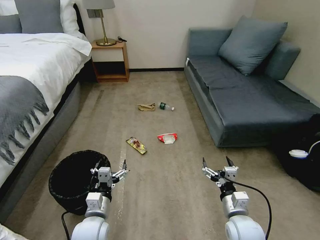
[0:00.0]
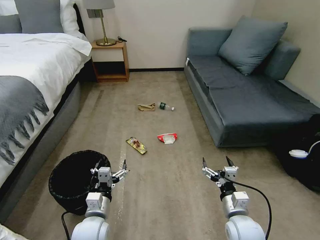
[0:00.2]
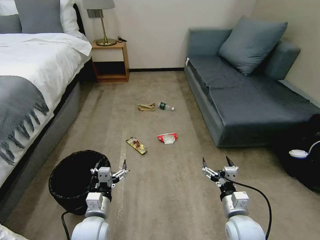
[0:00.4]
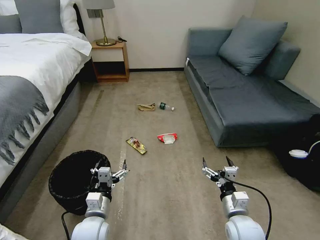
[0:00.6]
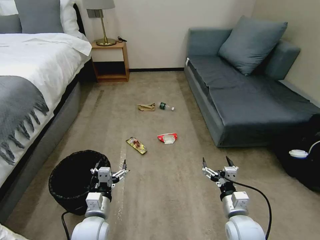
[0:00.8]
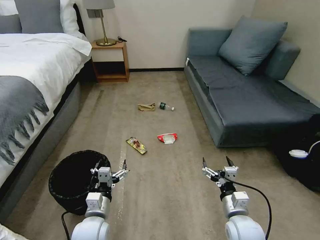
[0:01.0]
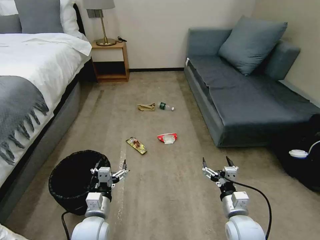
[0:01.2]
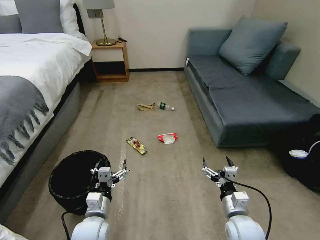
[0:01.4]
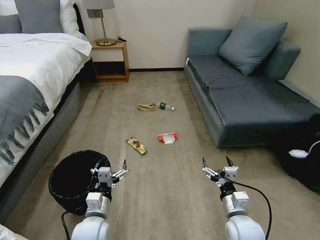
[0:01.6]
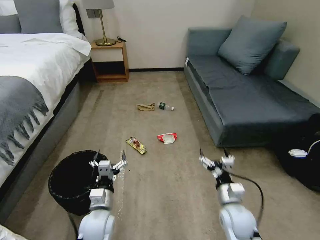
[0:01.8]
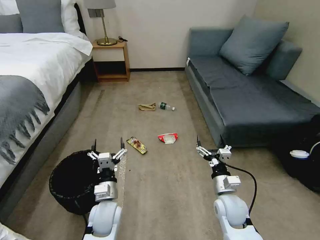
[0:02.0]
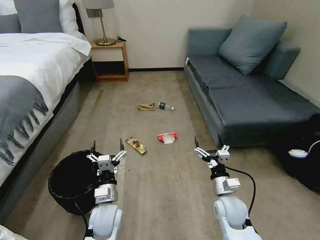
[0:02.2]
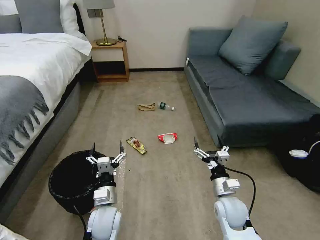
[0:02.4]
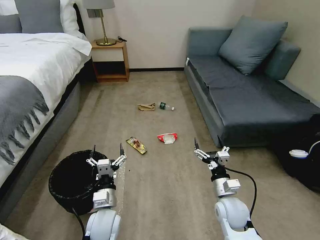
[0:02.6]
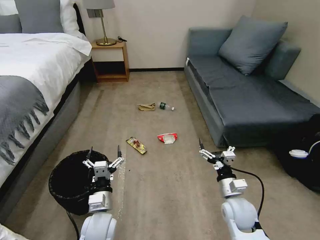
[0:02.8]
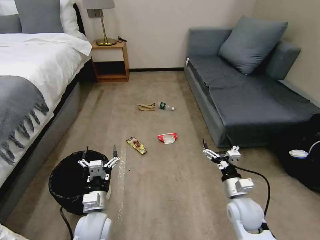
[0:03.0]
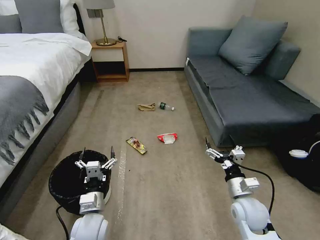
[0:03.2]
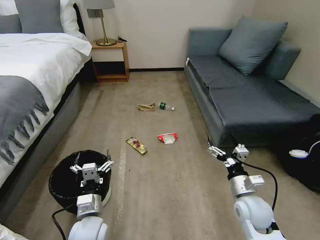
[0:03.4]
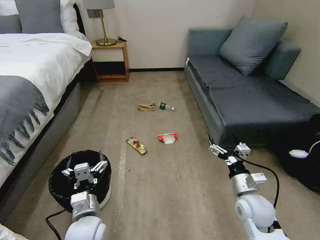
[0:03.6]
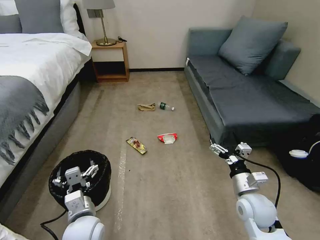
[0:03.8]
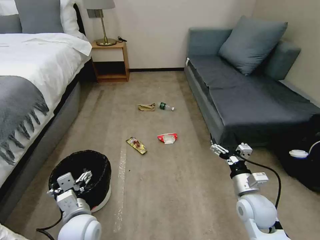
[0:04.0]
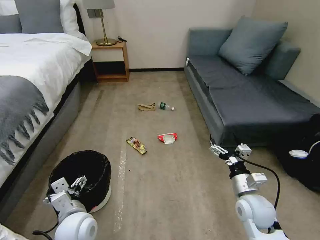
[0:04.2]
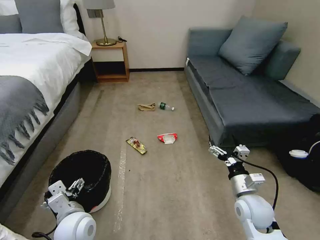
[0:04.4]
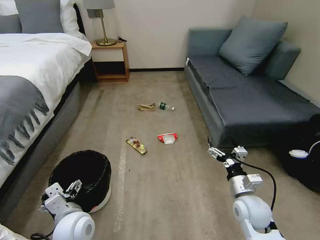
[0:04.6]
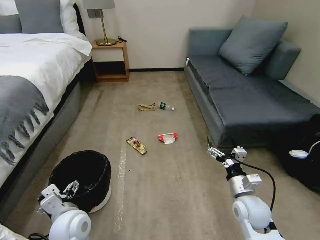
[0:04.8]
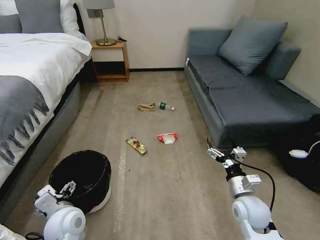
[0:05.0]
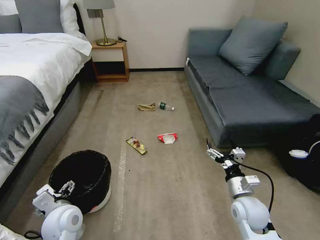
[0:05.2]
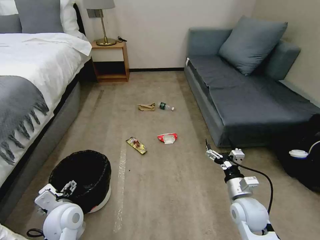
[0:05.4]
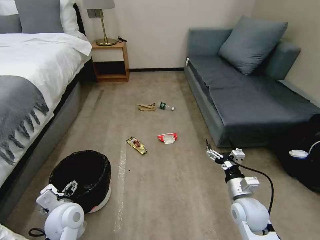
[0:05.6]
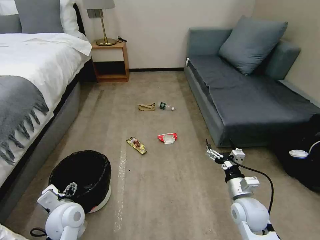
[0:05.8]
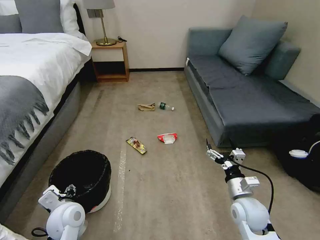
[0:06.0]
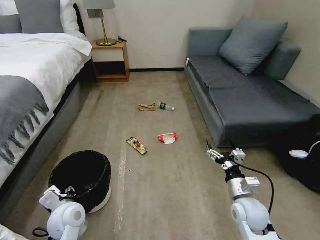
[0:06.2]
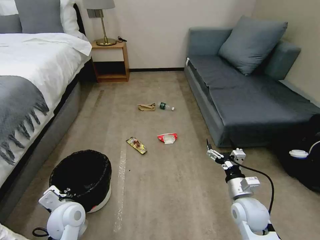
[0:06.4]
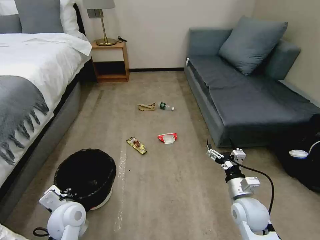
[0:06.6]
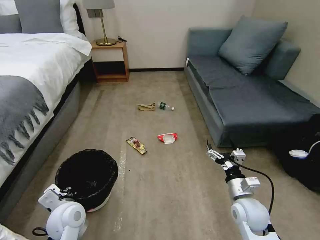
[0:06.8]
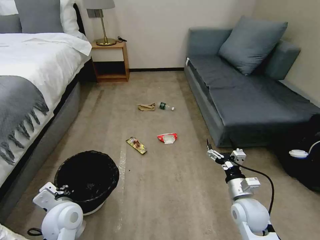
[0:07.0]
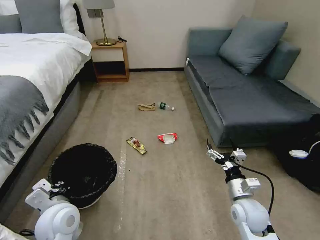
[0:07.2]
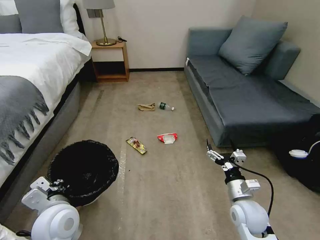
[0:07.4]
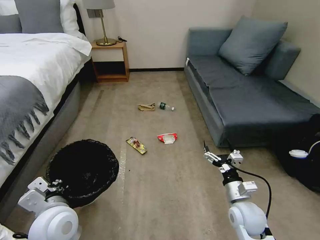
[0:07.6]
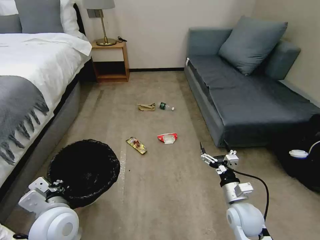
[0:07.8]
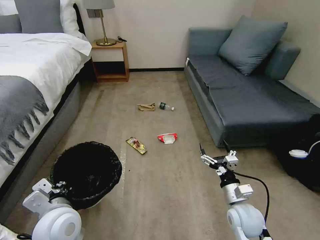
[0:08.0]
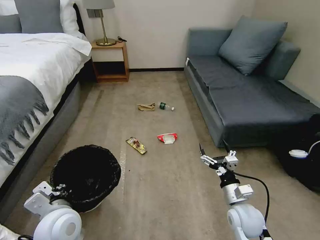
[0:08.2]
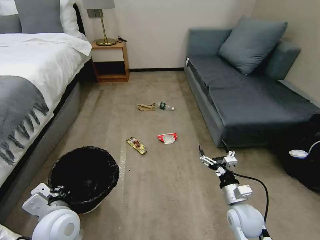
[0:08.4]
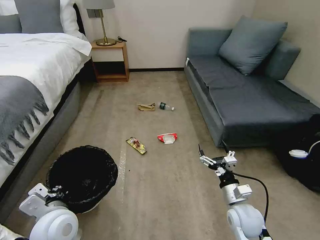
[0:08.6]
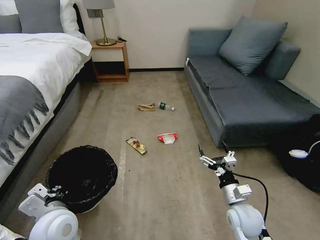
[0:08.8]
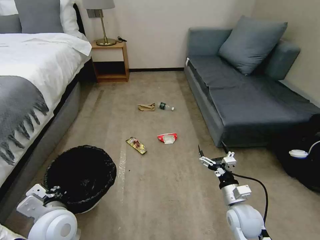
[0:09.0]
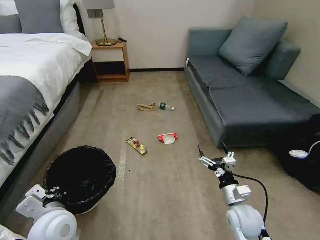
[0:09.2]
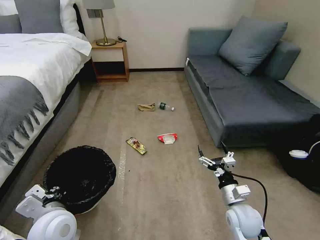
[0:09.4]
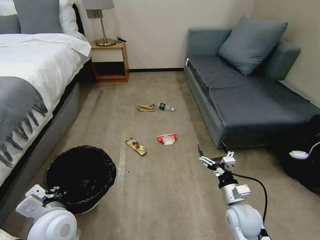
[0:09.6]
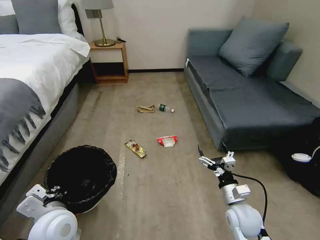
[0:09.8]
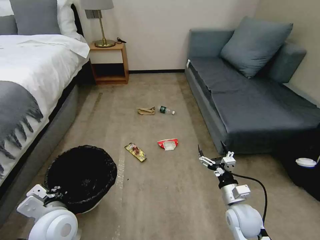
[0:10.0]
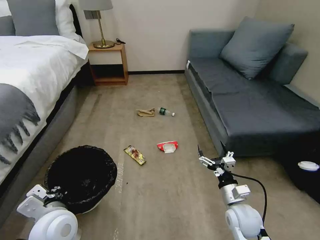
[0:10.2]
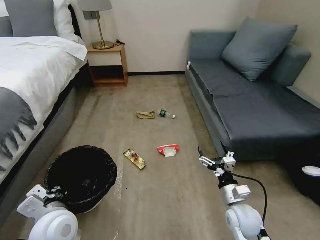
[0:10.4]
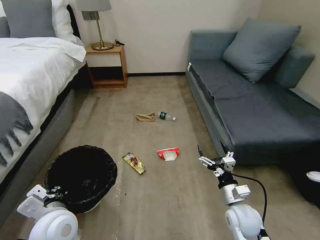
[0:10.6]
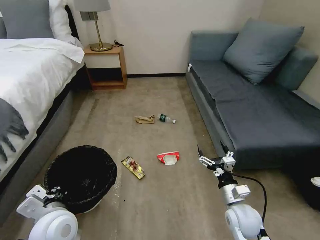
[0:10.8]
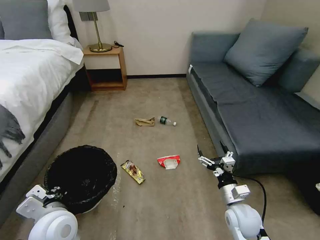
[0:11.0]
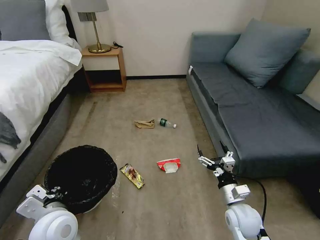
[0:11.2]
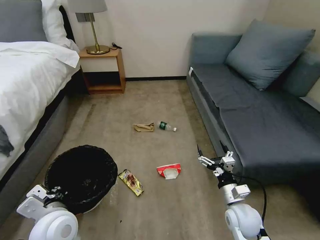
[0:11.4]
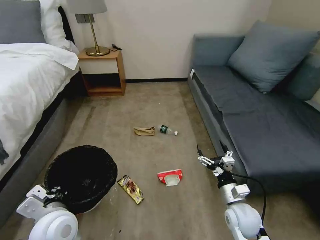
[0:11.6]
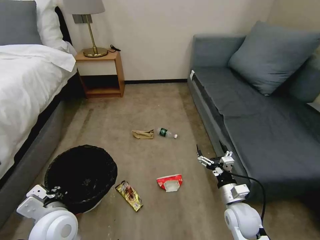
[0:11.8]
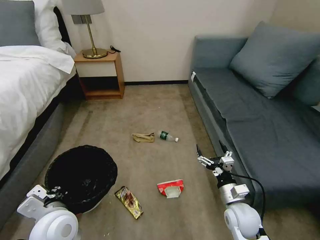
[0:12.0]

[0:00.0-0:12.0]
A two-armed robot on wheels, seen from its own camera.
Task of the whole recording: Pick up the trash bin, then pick up the garbage on the floor and place it into the trash bin.
0:01.6 to 0:03.0: The right gripper shifts roughly 5 cm forward.
0:03.0 to 0:04.4: The left gripper ends up about 5 cm from where it was.
0:04.4 to 0:06.0: The left gripper ends up some 5 cm from where it was, and closes up.
0:06.0 to 0:07.6: The left gripper is displaced upward by roughly 10 cm, and closes up.
0:07.6 to 0:09.0: The grippers move only a little.
0:09.0 to 0:10.4: Both grippers stay put.

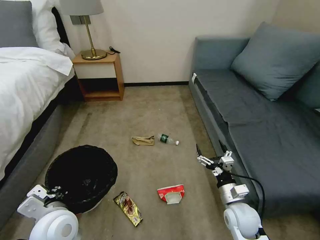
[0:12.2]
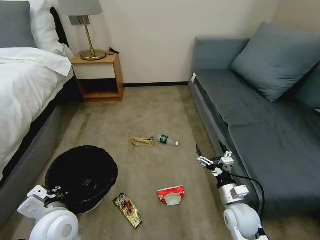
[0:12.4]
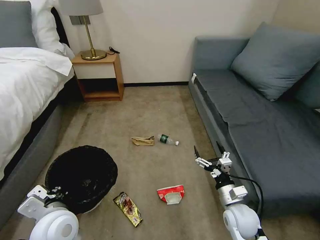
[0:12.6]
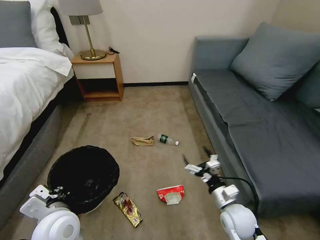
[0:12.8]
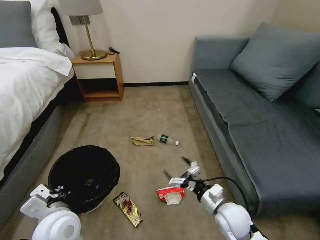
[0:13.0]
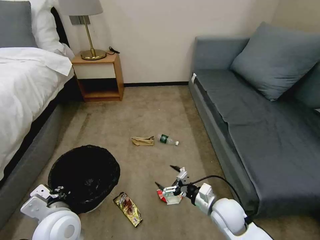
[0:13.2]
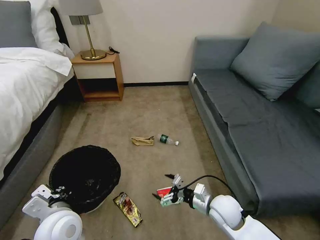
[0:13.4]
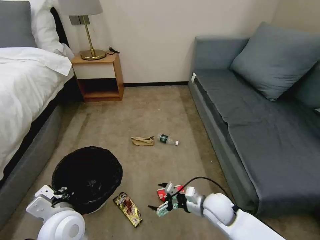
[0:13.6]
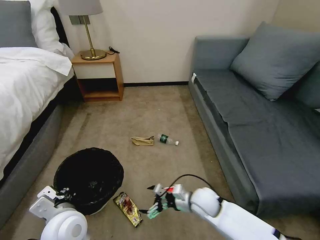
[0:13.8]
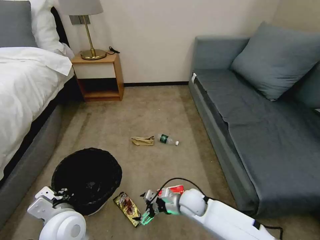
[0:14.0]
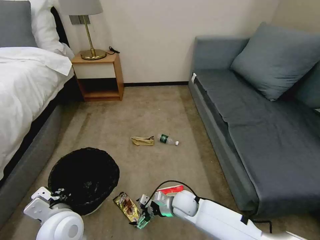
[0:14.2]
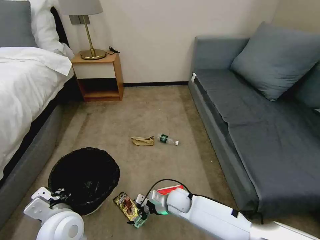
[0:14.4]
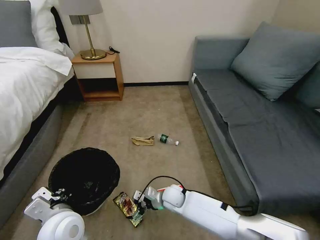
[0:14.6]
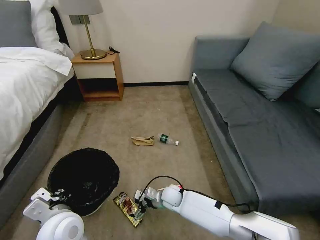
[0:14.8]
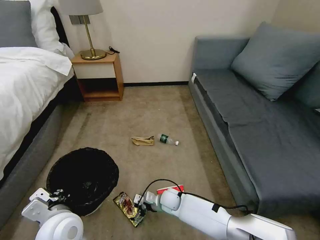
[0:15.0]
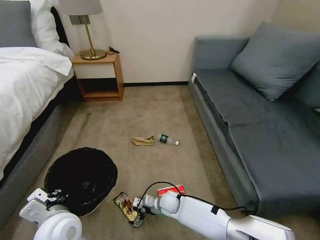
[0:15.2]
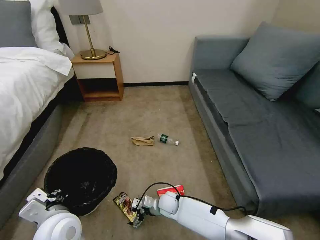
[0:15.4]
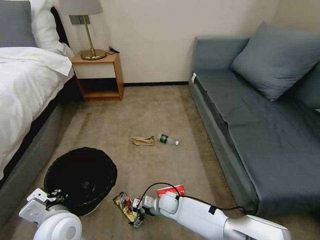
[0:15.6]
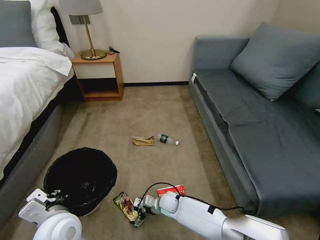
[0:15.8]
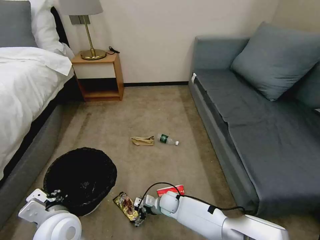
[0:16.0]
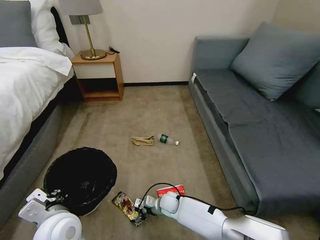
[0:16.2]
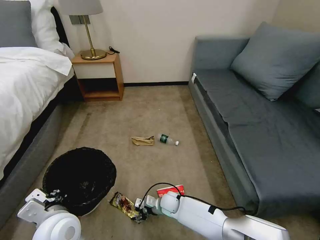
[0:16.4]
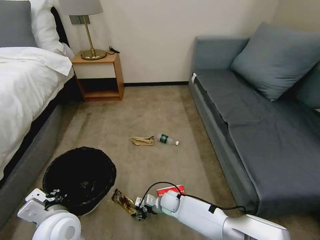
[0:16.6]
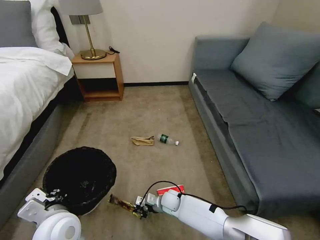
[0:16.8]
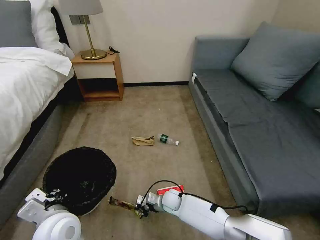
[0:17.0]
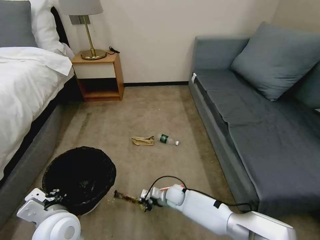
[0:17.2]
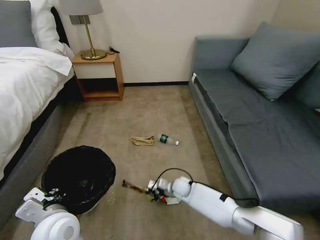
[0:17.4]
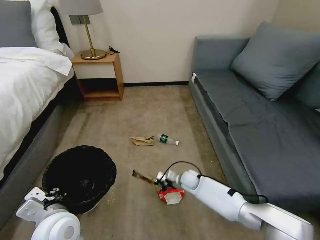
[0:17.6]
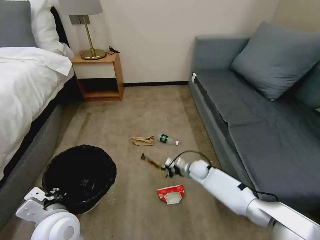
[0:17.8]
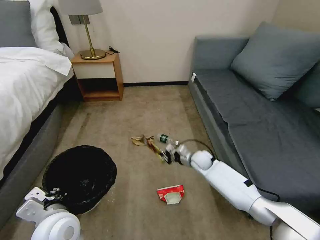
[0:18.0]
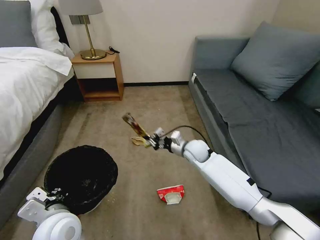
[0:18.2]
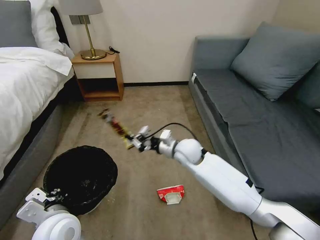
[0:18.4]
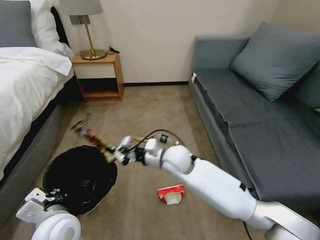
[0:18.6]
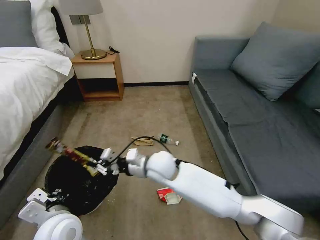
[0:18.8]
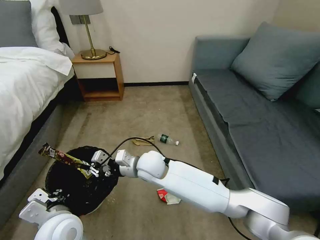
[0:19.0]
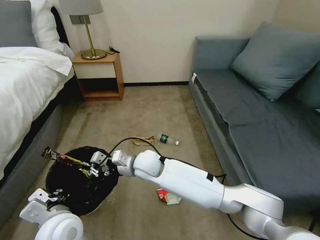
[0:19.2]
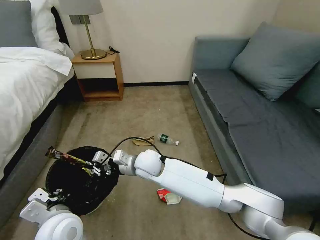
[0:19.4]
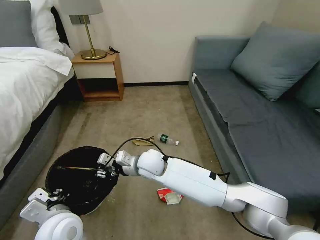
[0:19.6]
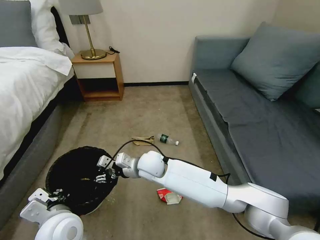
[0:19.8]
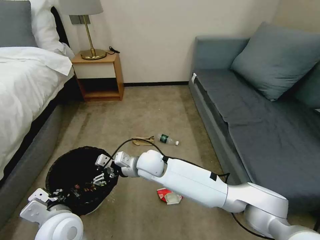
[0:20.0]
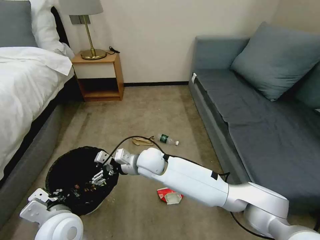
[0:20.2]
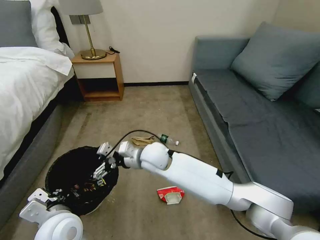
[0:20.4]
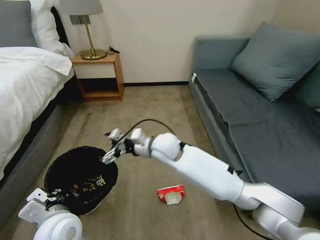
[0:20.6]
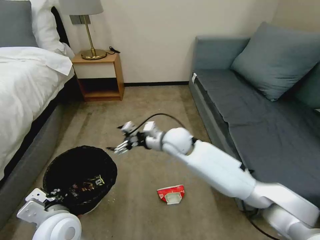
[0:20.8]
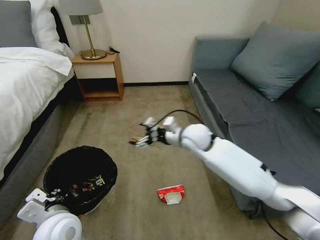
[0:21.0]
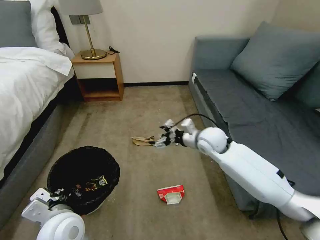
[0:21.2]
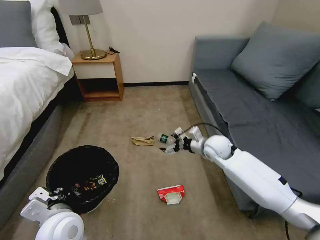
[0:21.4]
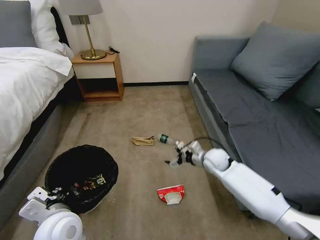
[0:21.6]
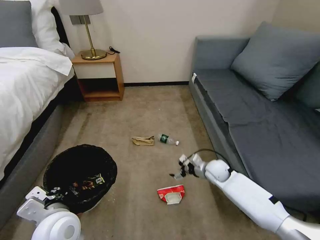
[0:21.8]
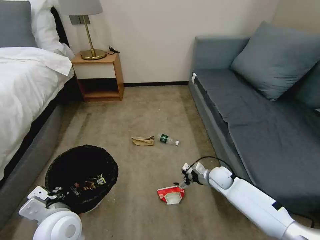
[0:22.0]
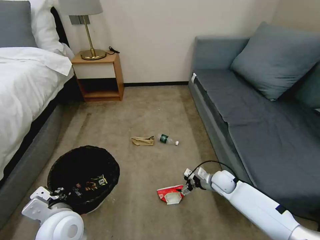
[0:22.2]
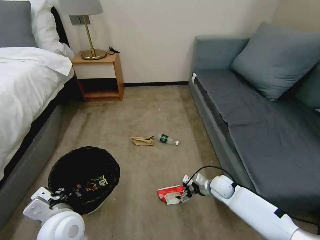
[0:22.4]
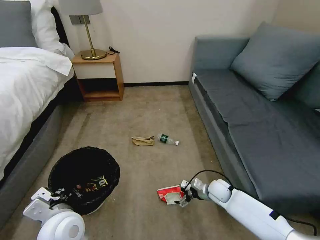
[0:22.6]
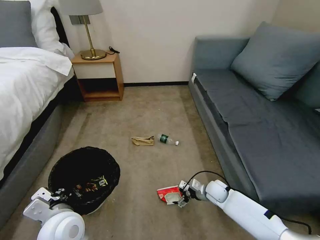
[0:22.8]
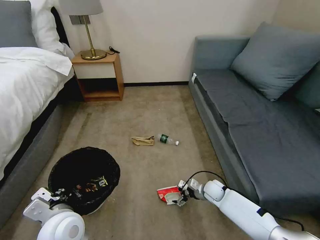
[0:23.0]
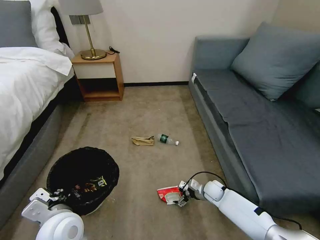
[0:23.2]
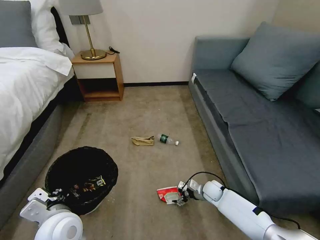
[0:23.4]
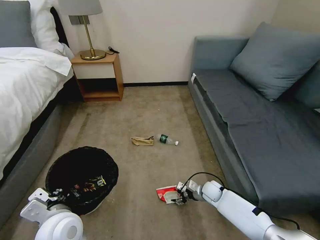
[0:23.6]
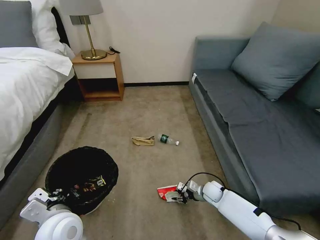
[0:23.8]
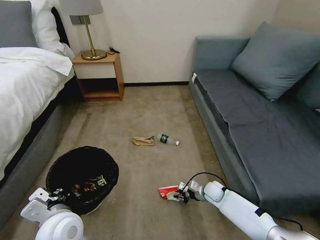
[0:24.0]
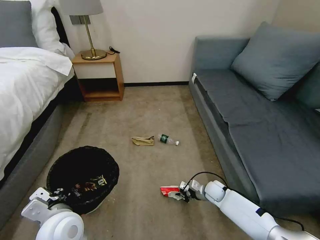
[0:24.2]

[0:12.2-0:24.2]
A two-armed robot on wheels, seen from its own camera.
Task of the whole recording: Pick up the trash bin, then pick up the garbage on the floor and place it into the trash bin.
0:12.2 to 0:13.8: The right gripper goes about 10 cm to the left and forward.
0:13.8 to 0:15.2: The right gripper shifts approximately 15 cm downward and to the left.
0:15.2 to 0:16.6: The right gripper closes.
0:16.6 to 0:18.2: The right gripper is displaced upward, forward and to the right by some 25 cm, and closes up.
0:18.2 to 0:19.8: The right gripper heads to the left and backward, covering some 20 cm, and opens.
0:19.8 to 0:21.2: The right gripper goes about 20 cm to the right, and opens up.
0:21.2 to 0:22.6: The right gripper shifts approximately 25 cm downward.
0:22.6 to 0:24.2: The right gripper closes its fingers.
